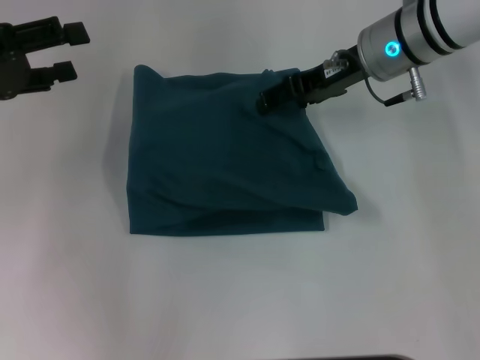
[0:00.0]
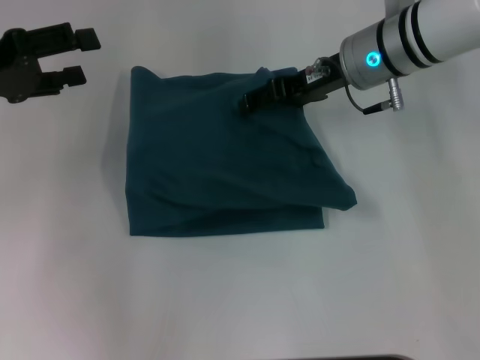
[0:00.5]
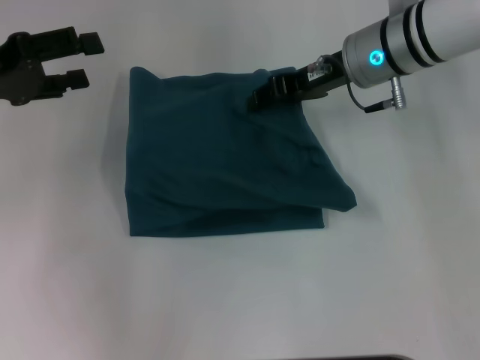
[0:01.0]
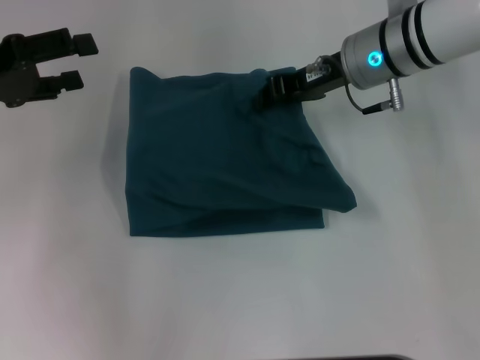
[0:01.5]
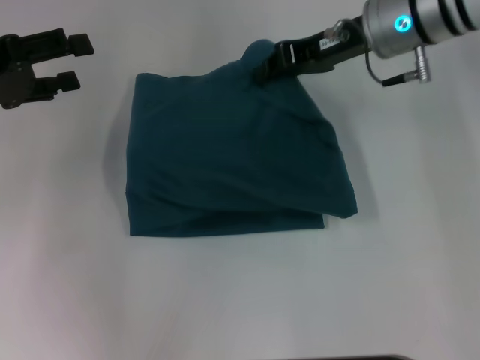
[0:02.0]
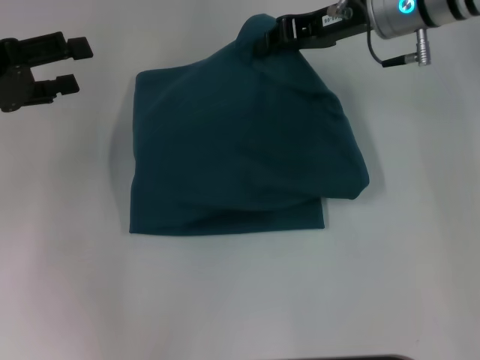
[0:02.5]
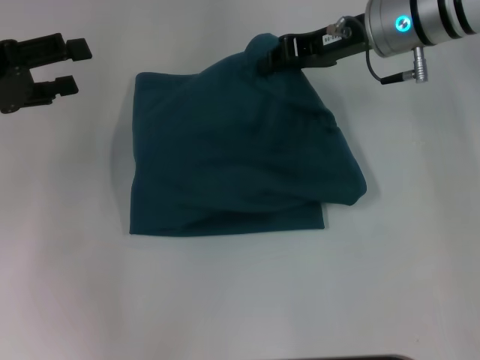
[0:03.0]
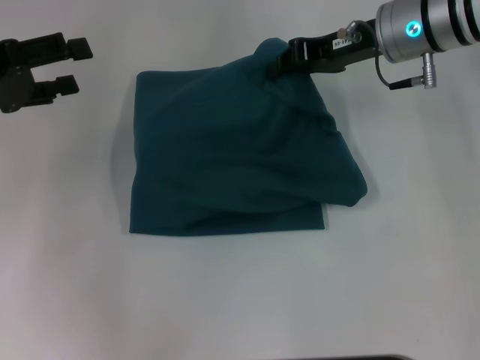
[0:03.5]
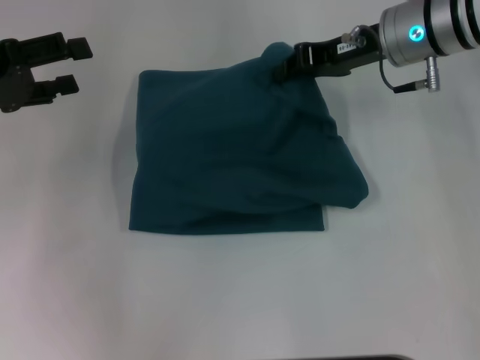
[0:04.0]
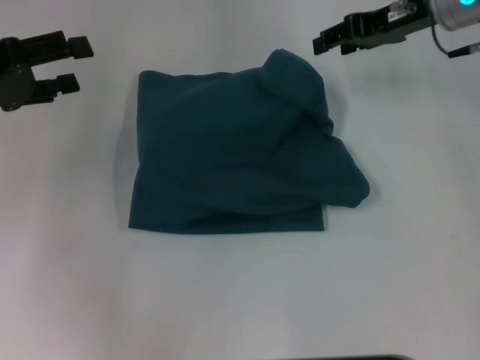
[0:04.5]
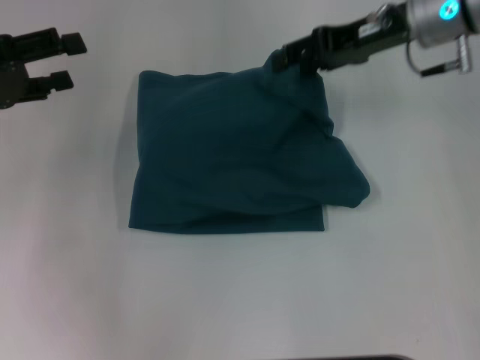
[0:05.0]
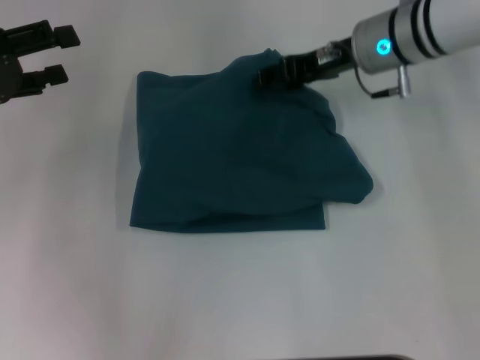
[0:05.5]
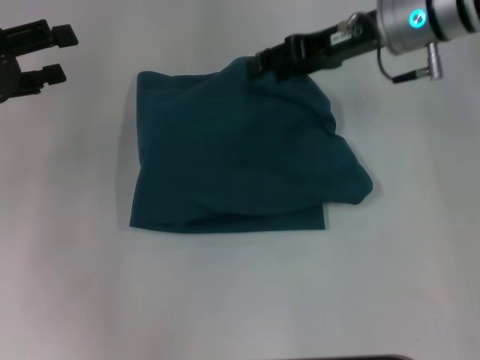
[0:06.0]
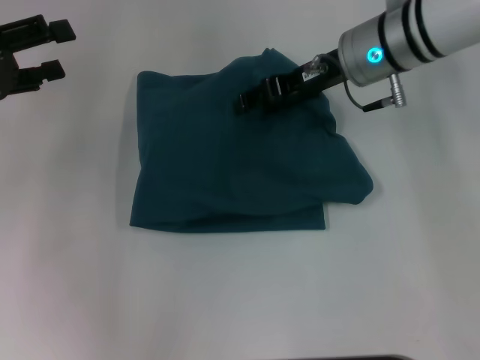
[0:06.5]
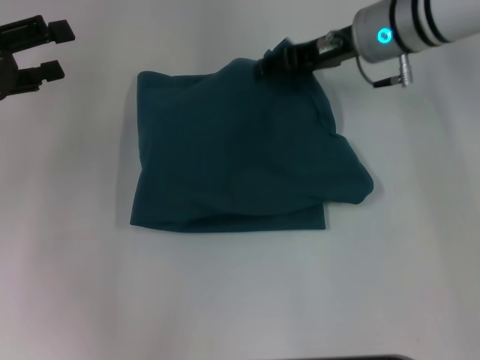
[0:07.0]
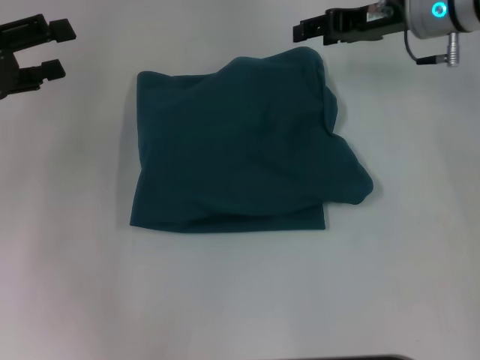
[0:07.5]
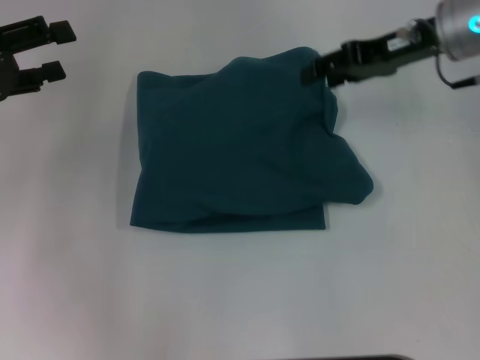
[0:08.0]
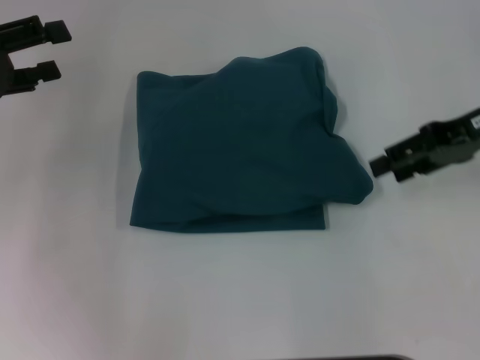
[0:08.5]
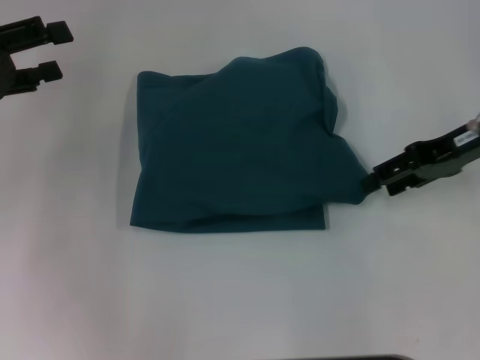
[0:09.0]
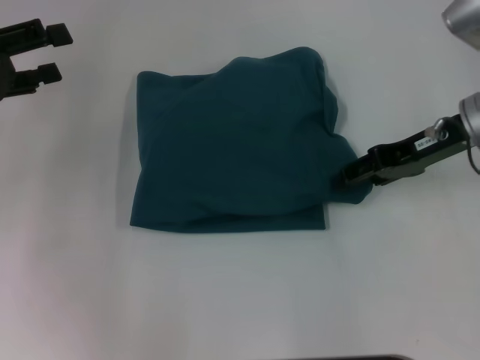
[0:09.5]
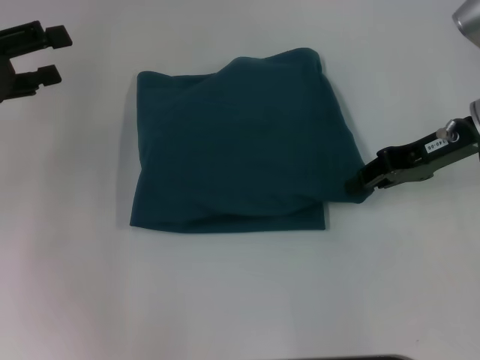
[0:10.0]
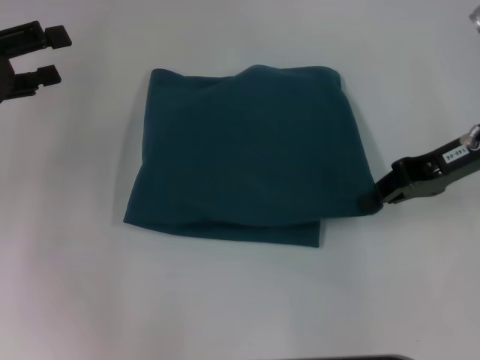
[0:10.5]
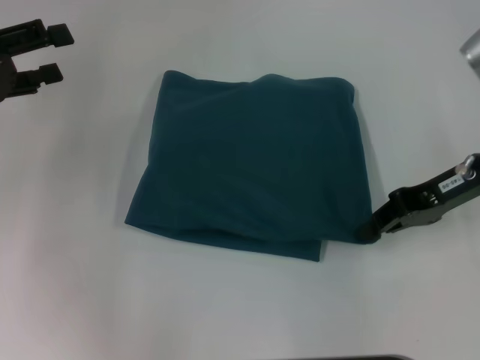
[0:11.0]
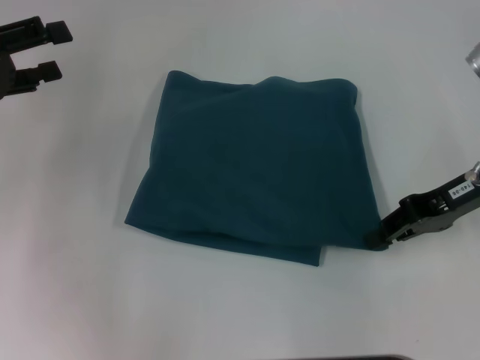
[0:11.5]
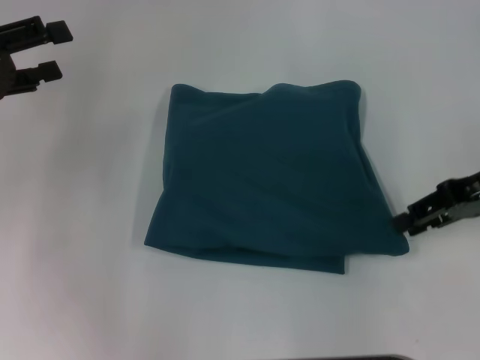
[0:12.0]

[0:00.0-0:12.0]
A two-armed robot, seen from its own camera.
0:00.0 to 0:02.0: The right gripper closes up.
0:02.0 to 0:04.0: The grippers make only small movements.
0:04.0 to 0:06.0: The right gripper opens up.
0:06.0 to 0:08.0: The right gripper moves to the right, about 5 cm.
0:08.0 to 0:10.0: The right gripper is displaced backward by roughly 5 cm.
0:10.0 to 0:12.0: The right gripper is displaced to the right by approximately 5 cm.

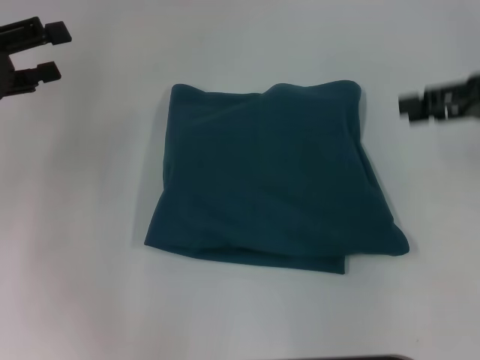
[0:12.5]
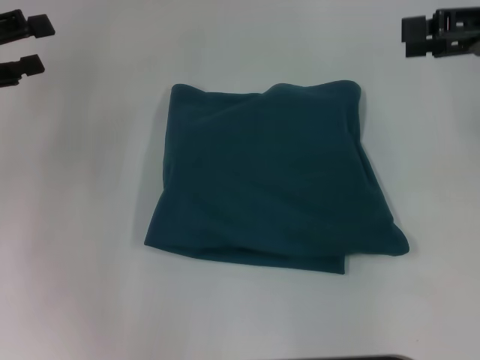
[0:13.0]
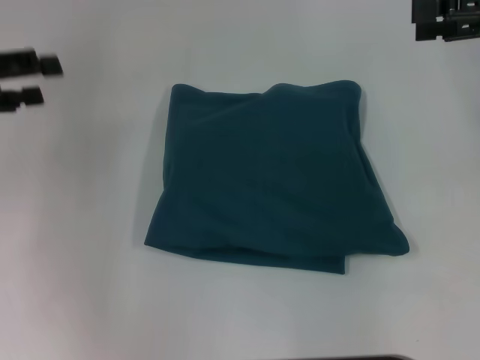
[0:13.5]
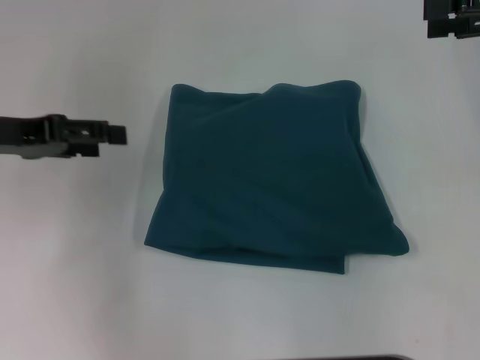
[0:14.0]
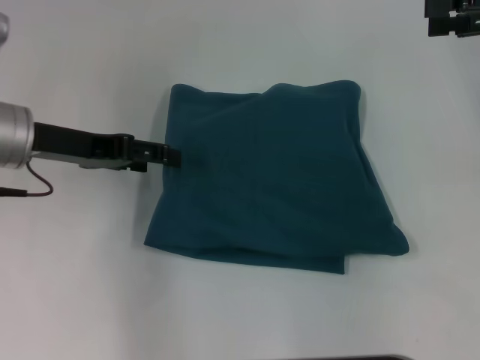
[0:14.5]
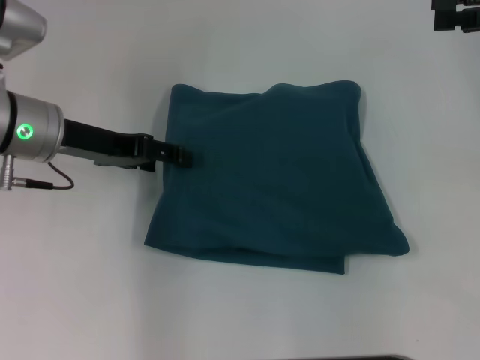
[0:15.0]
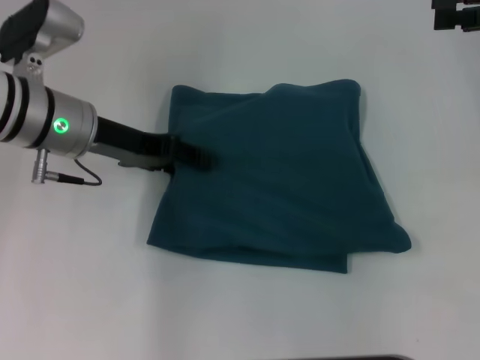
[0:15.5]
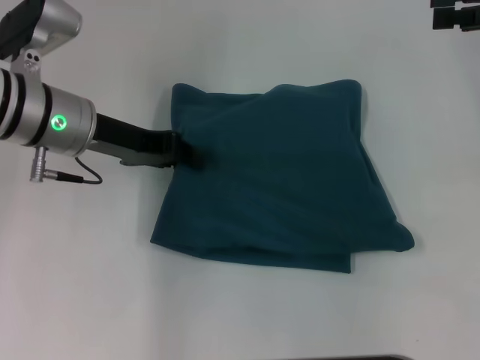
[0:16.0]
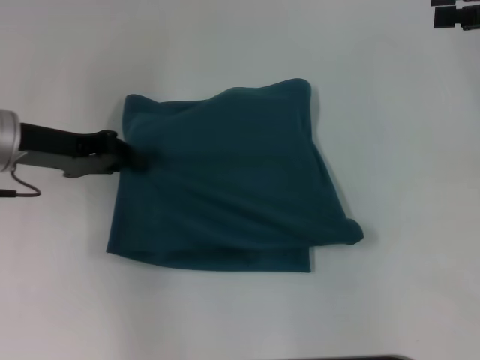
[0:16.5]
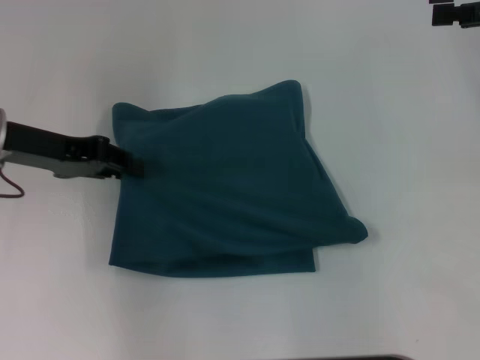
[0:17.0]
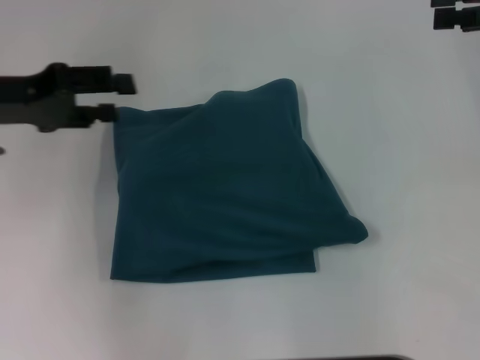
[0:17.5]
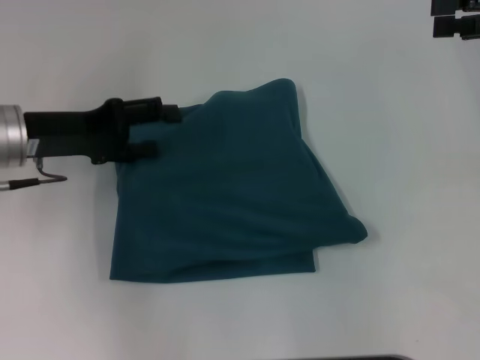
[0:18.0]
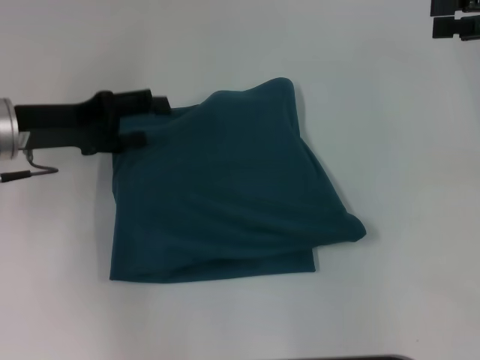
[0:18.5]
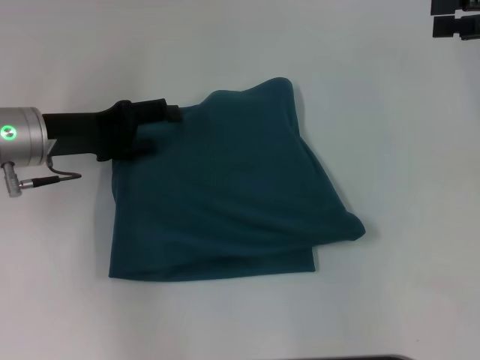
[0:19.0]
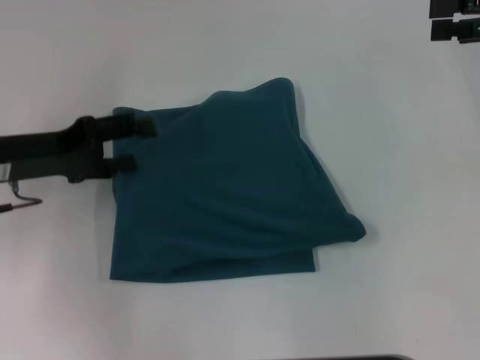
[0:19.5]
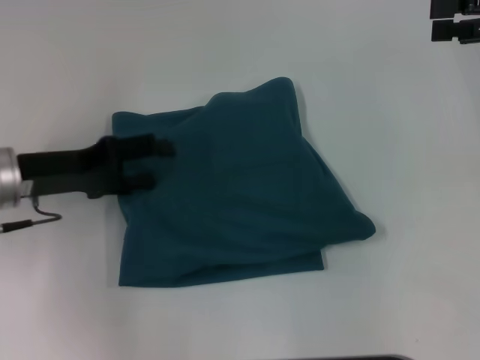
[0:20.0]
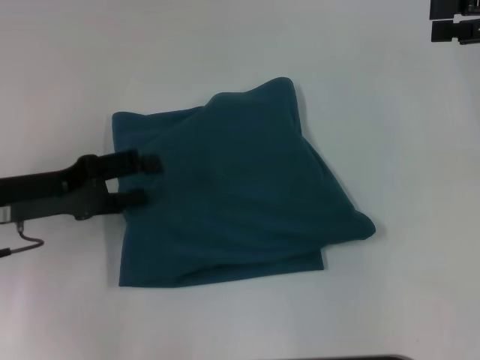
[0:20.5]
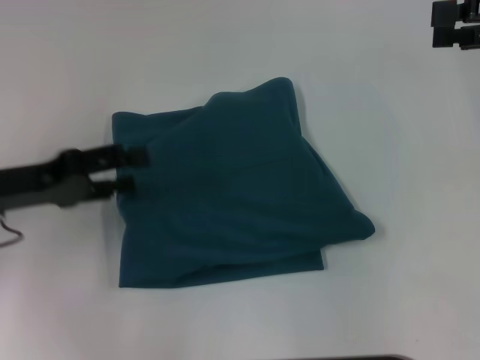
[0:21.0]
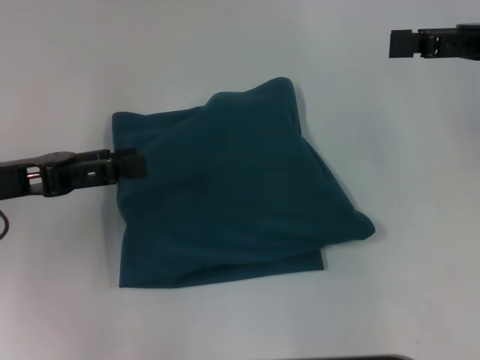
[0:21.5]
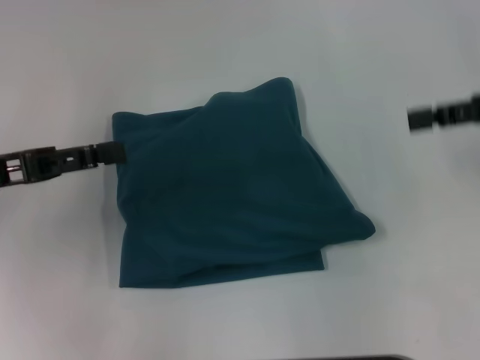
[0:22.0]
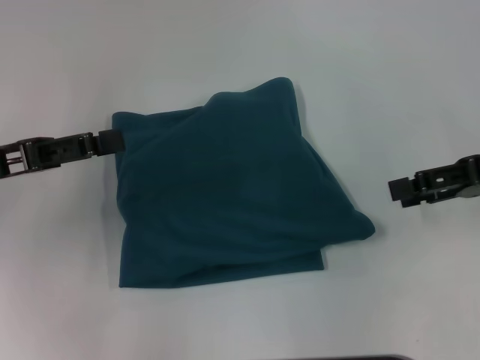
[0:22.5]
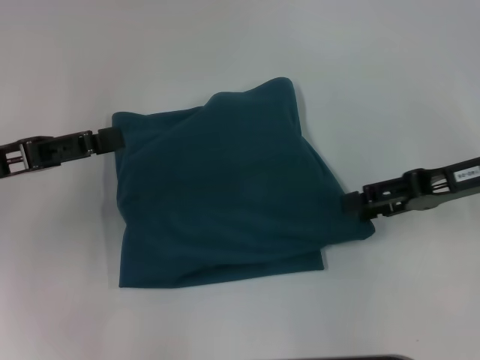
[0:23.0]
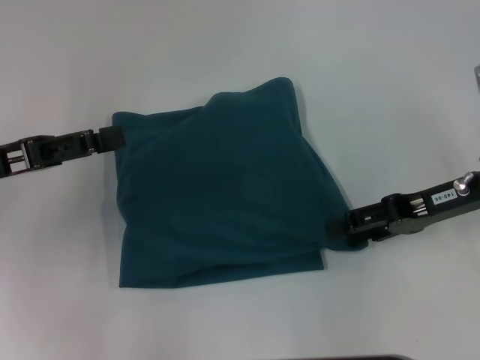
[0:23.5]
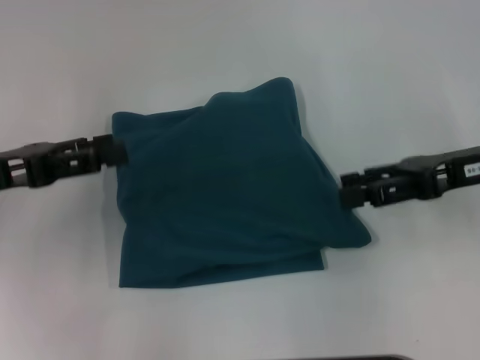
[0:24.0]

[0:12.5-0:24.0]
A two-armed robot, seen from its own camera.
0:12.5 to 0:14.5: The right gripper moves upward, approximately 5 cm, and opens, while the left gripper travels to the right by approximately 10 cm.
0:14.5 to 0:16.5: The left gripper closes.
0:16.5 to 0:18.5: The left gripper opens up.
0:18.5 to 0:20.0: The grippers stay close to where they were, moving slightly.
0:20.0 to 0:22.0: The left gripper moves roughly 5 cm.
0:22.0 to 0:24.0: The right gripper goes some 10 cm to the left and downward.

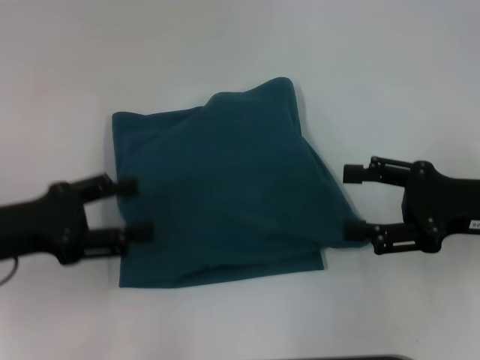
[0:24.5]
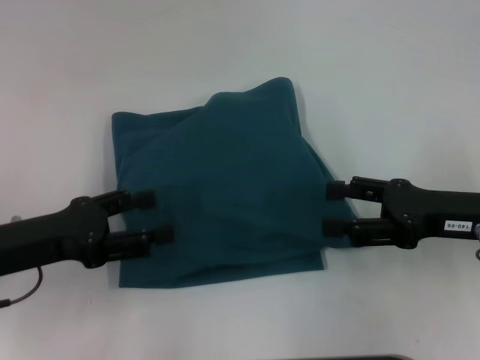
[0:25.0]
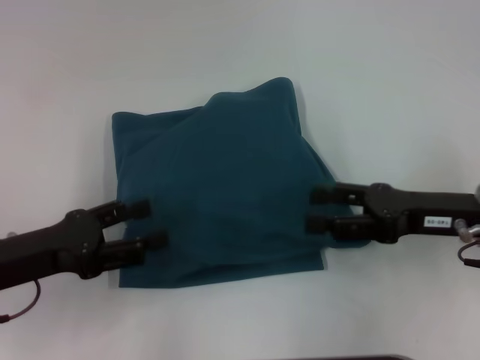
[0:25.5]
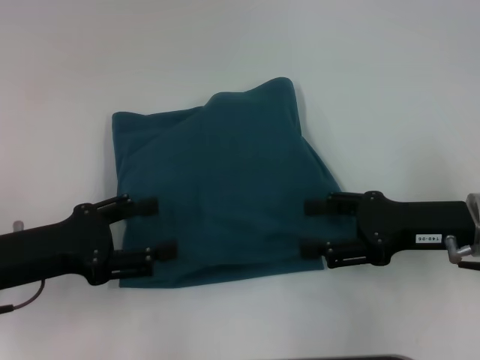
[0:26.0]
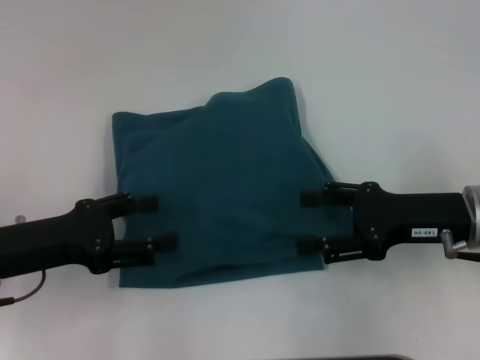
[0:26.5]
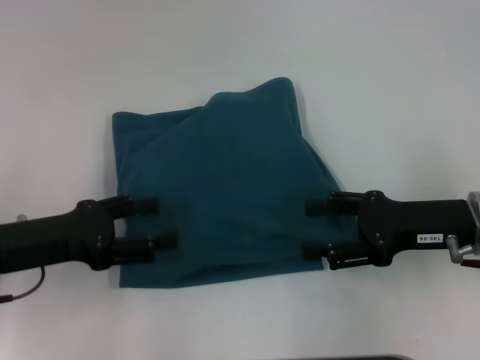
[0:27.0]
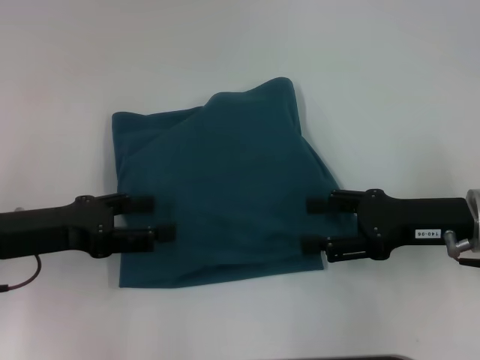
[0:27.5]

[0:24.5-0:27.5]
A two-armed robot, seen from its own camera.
0:26.0 to 0:27.5: The grippers make only small movements.
